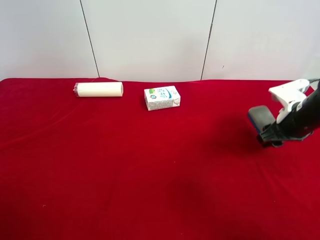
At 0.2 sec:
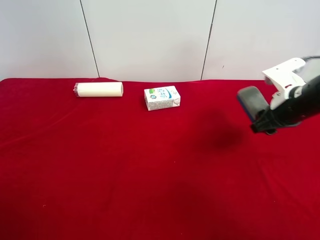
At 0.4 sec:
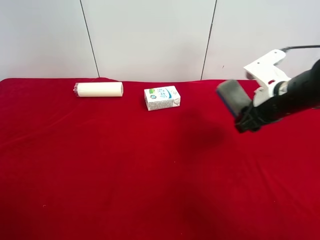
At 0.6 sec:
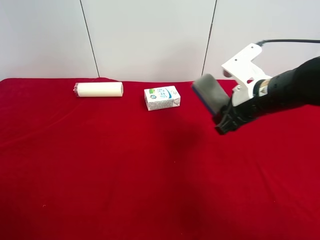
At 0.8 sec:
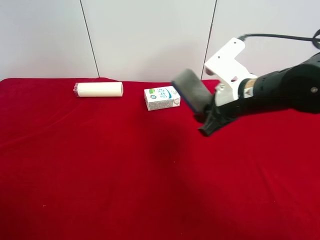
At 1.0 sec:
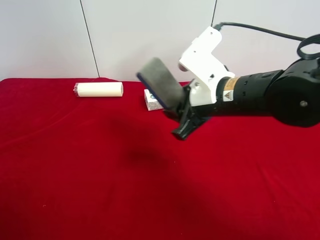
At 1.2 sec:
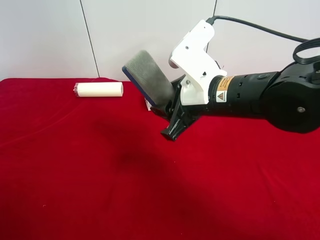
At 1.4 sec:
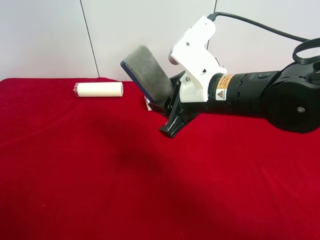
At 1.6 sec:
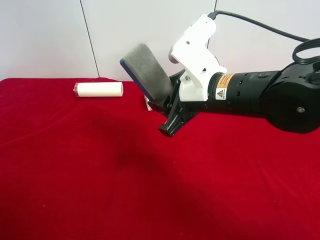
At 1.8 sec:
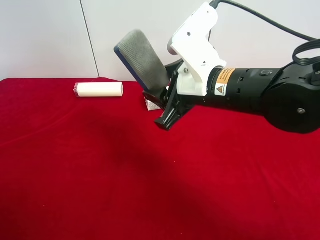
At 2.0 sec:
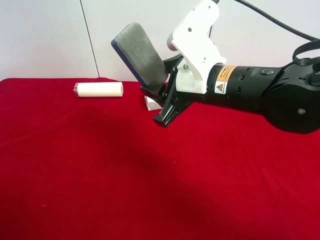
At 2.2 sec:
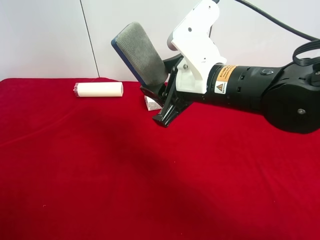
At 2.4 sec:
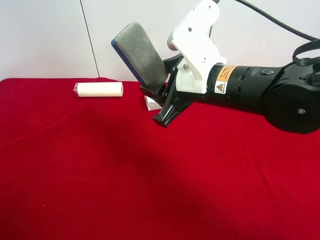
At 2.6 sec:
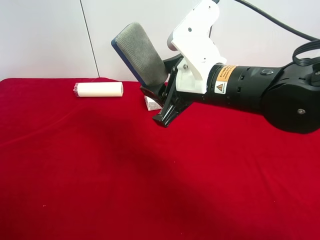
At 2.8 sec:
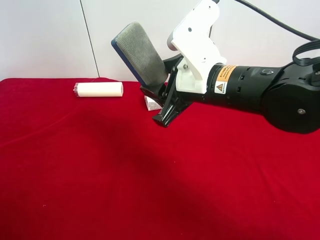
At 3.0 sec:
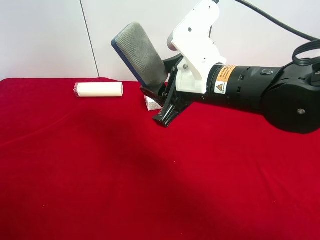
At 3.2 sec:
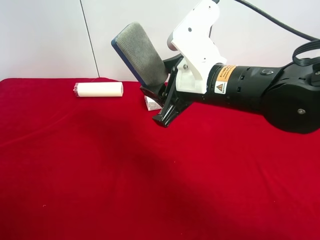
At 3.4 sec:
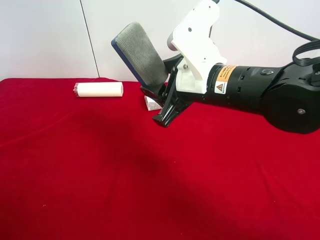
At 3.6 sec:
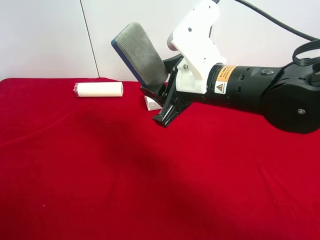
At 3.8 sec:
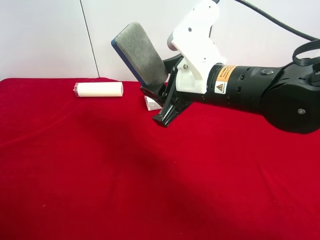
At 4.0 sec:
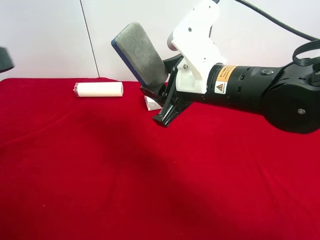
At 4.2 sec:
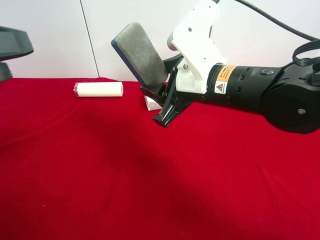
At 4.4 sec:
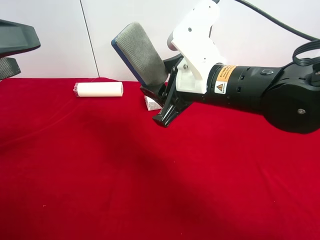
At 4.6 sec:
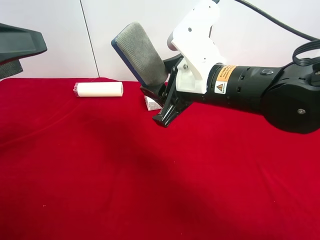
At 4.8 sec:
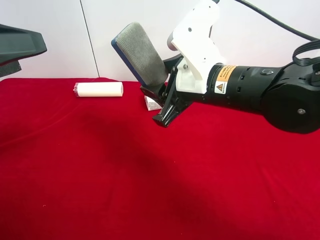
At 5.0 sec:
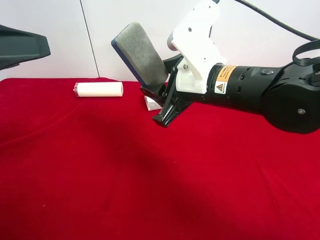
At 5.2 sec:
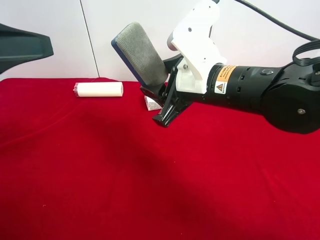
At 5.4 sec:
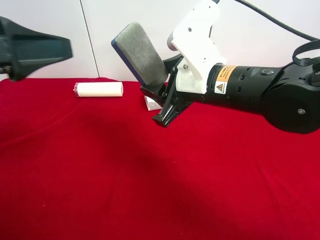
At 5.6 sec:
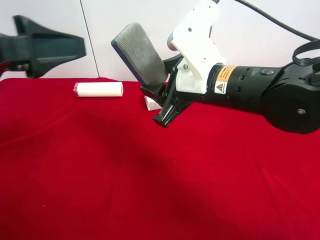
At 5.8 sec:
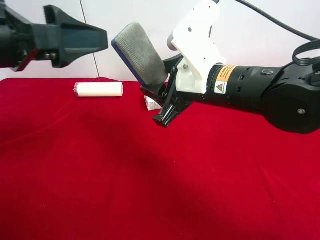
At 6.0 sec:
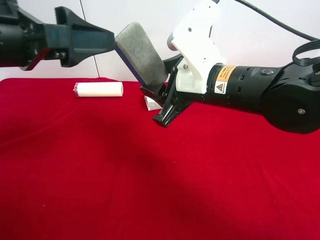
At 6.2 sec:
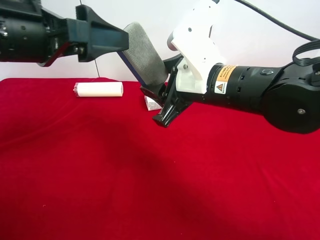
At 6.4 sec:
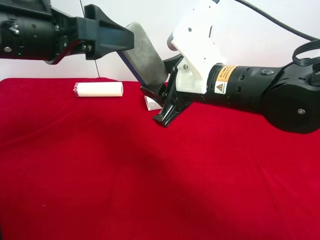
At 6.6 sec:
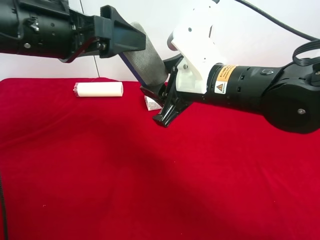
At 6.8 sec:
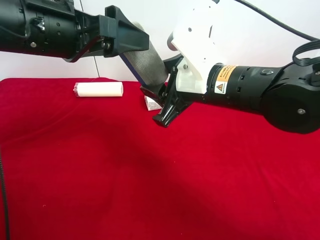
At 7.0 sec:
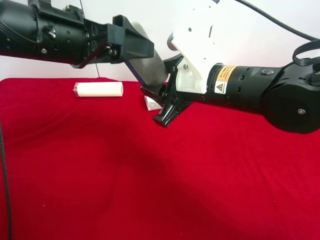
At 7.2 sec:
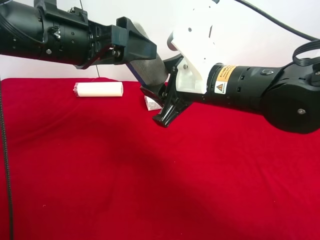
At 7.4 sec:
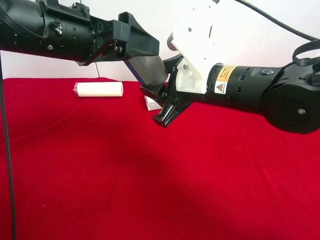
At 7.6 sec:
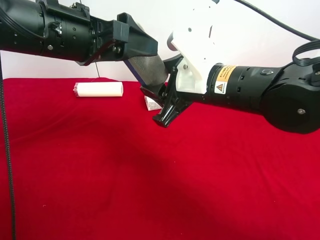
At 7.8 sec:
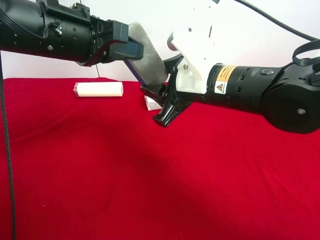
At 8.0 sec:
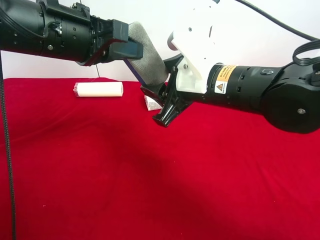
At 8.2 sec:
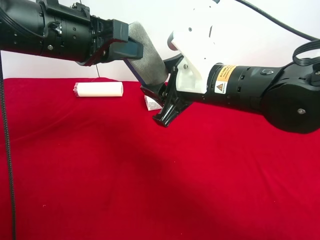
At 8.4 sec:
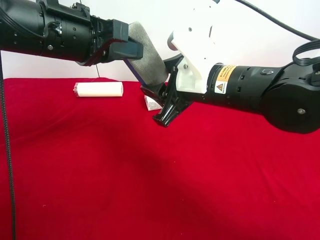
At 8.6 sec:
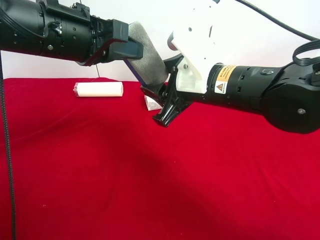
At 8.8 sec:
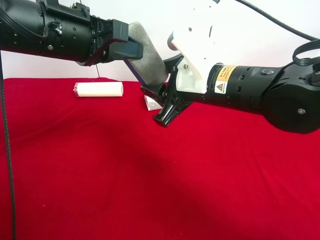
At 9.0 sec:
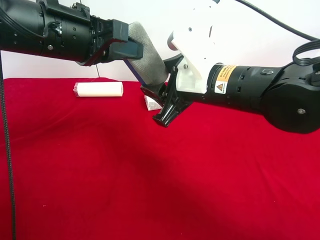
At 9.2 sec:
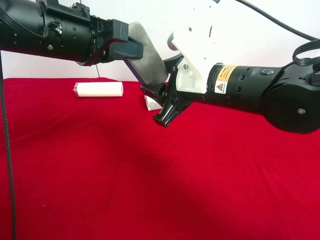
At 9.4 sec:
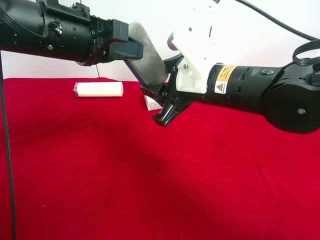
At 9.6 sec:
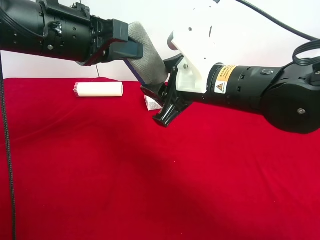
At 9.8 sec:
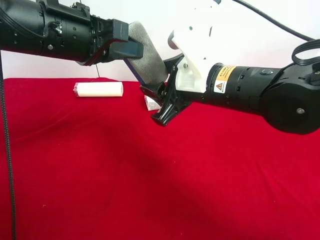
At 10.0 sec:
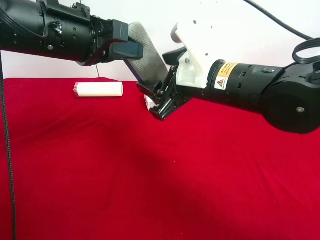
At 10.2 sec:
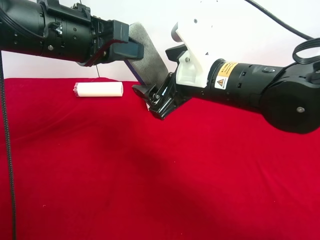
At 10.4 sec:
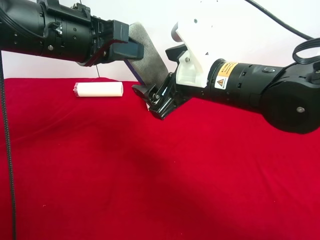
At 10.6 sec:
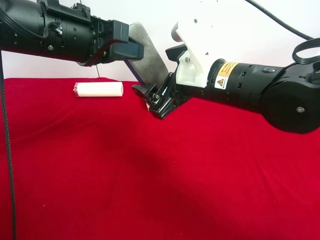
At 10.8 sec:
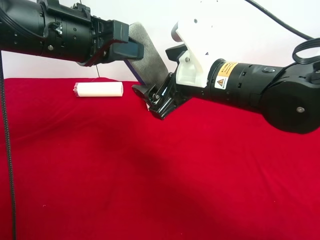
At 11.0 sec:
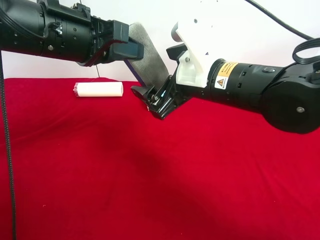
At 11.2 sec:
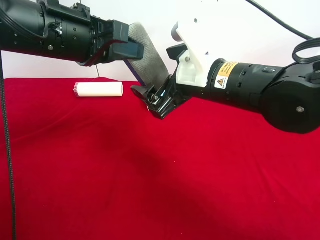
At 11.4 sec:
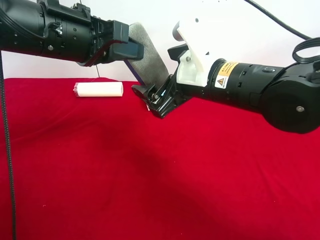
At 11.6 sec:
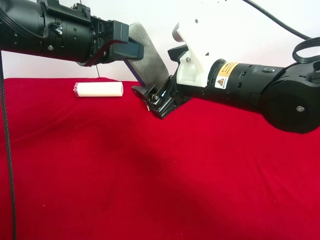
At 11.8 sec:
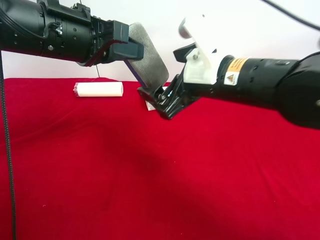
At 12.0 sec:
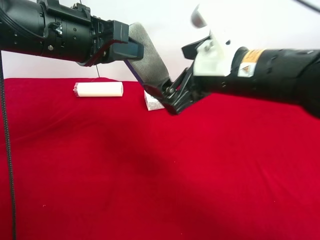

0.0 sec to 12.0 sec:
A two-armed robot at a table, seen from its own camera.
Task of the whole recording: use the right gripper to pick up the item and transfer it from the right gripper to the left gripper.
Step, 0.0 sec to 10.0 sec: Pass the blue blackboard erasure to the left gripper.
0.0 sec to 1.6 sec: The right gripper moves to the left, approximately 20 cm.
1.6 sec to 3.0 sec: There are only small adjustments of the grippers.
3.0 sec to 4.4 sec: The left gripper heads forward, covering roughly 15 cm.
4.4 sec to 6.0 sec: The left gripper heads to the right, covering some 5 cm.
6.0 sec to 7.6 sec: The left gripper moves forward, about 5 cm.
7.6 sec to 9.0 sec: The left gripper closes.
9.0 sec to 10.4 sec: The right gripper opens up.
10.4 sec to 12.0 sec: The grippers make only small movements.

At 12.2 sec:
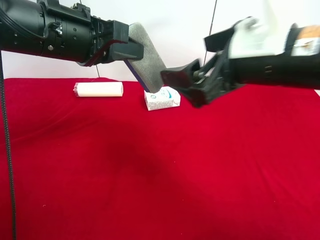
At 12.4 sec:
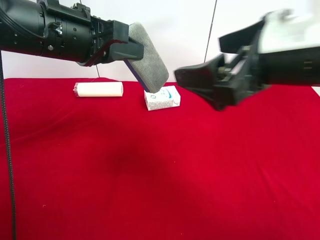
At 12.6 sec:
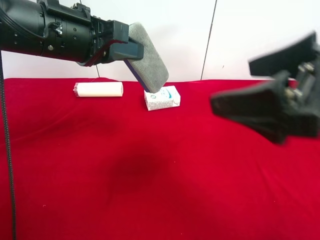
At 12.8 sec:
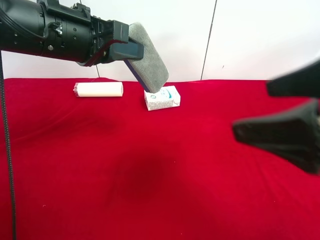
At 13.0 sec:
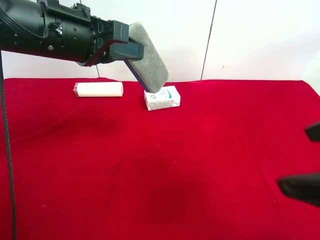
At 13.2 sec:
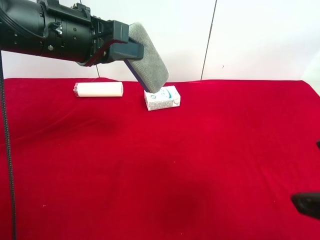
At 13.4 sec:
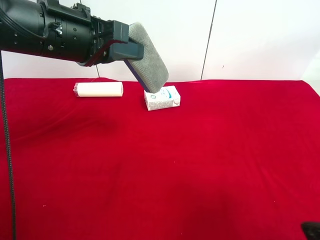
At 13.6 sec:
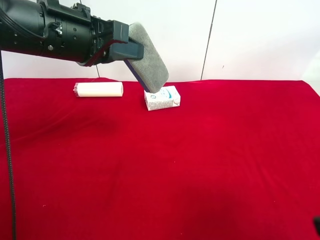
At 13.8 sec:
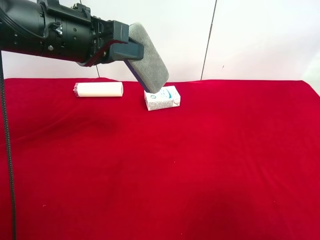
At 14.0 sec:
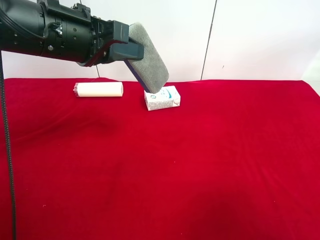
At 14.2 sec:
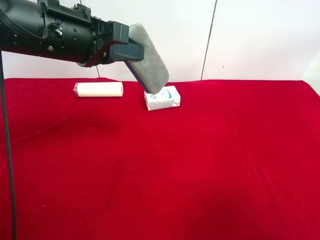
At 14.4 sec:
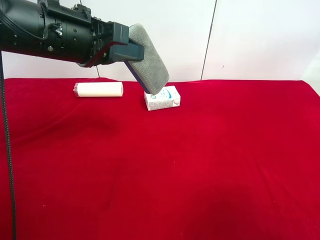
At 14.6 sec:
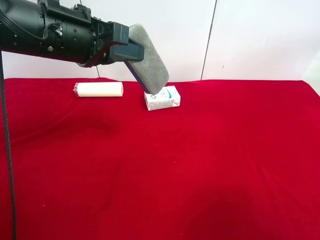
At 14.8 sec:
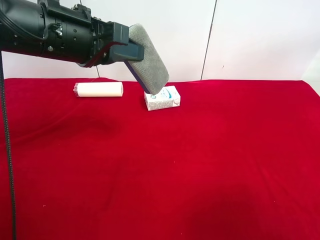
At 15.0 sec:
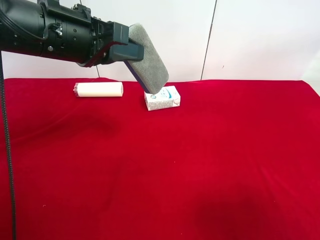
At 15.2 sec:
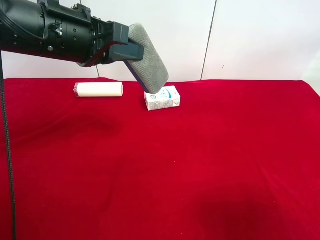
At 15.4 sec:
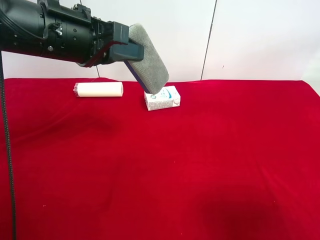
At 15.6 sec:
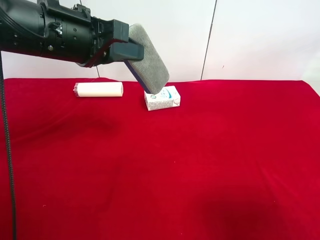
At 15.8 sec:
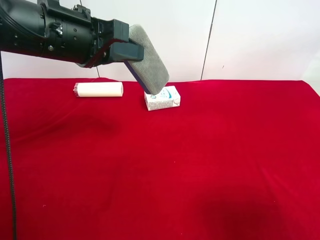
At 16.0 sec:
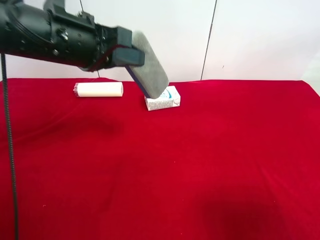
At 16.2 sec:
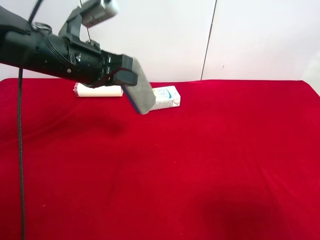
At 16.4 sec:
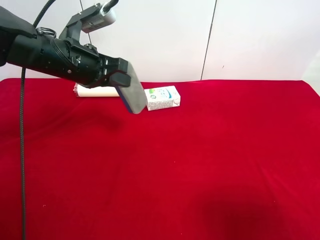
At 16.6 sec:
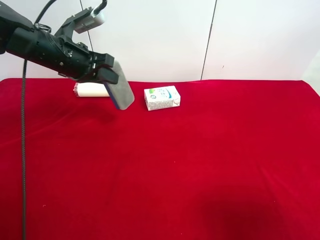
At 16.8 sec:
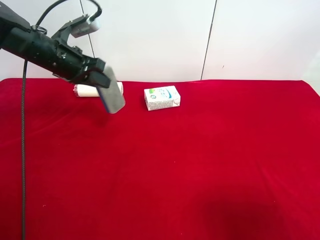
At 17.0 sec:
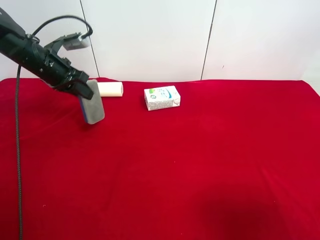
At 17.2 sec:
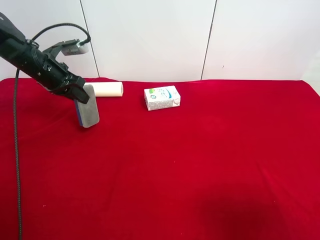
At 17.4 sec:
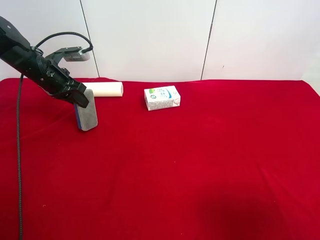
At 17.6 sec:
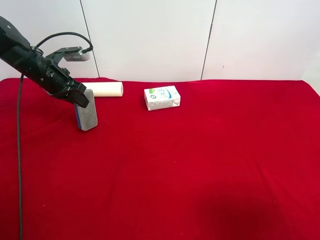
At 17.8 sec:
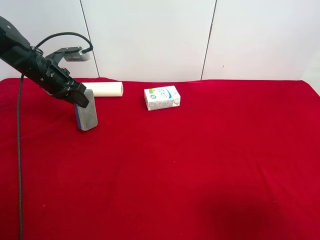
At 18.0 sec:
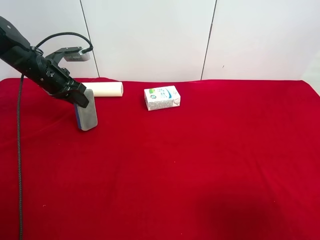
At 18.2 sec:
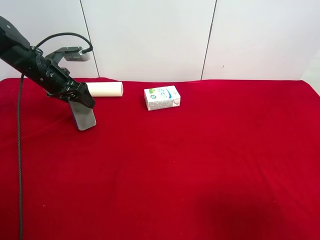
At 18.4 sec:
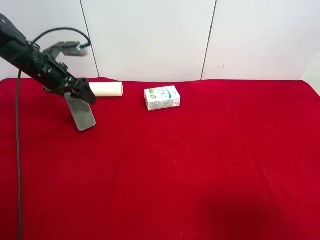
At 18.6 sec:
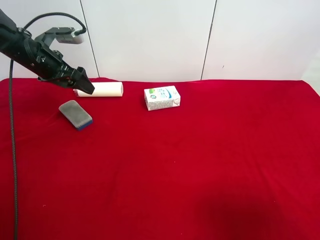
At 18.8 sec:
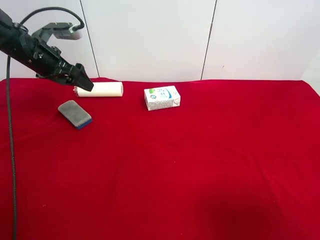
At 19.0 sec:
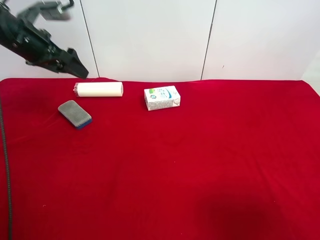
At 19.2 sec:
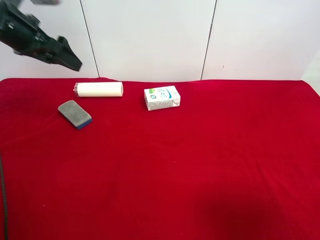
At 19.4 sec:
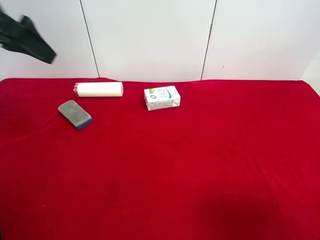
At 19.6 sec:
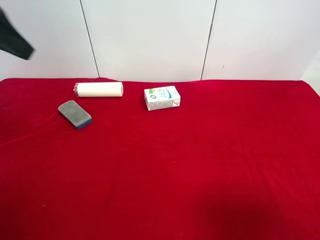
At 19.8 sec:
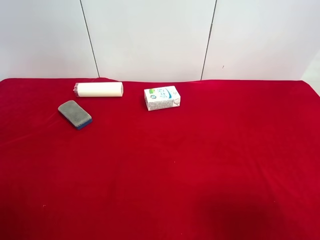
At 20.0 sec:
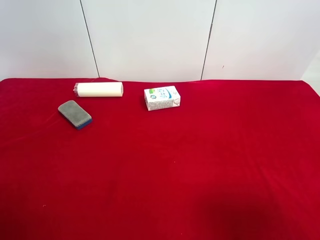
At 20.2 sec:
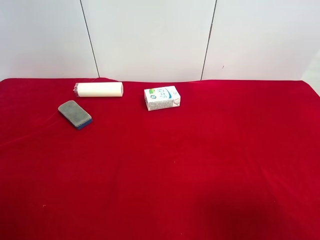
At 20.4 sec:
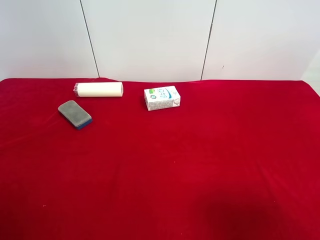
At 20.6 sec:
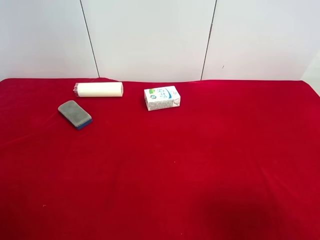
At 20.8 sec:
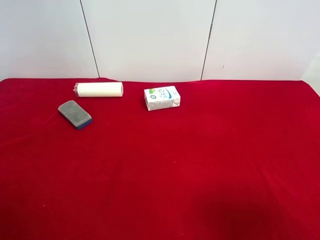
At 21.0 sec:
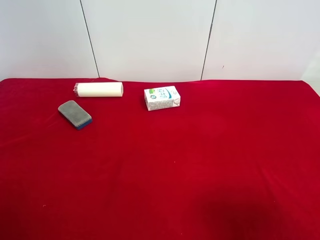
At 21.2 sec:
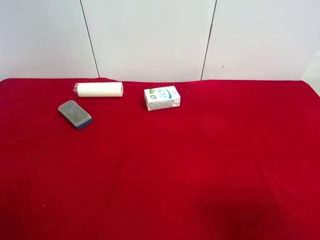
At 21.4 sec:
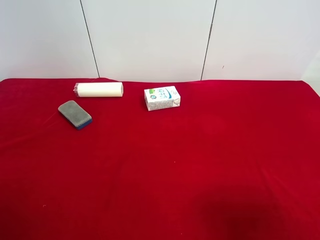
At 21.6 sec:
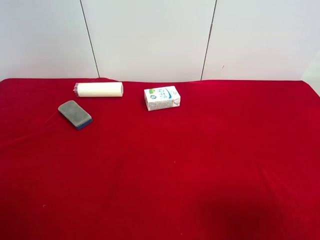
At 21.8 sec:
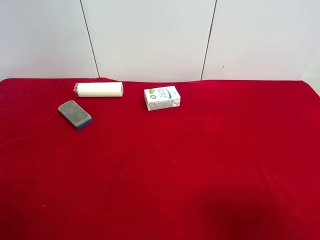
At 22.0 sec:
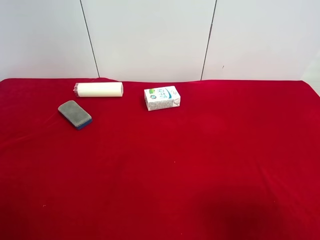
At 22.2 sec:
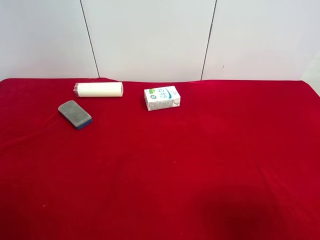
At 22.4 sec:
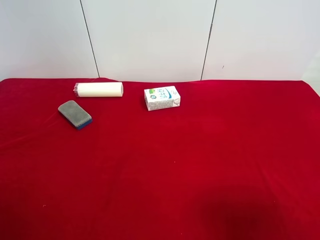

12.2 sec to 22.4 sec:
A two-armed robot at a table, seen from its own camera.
Task of the whole recording: use the right gripper to pick up the item and transfer it from the right gripper to the left gripper.
Step, 12.2 sec to 18.4 sec: The left gripper places blue blackboard erasure on the left side of the table.
12.2 sec to 13.6 sec: The right gripper is displaced backward and to the right by roughly 20 cm.
15.2 sec to 16.6 sec: The left gripper shifts about 15 cm forward, downward and to the left.
16.6 sec to 18.0 sec: The left gripper shifts some 10 cm to the left and downward.
18.0 sec to 19.4 sec: The left gripper shifts roughly 25 cm upward and backward, and opens up.
19.4 sec to 21.0 sec: The left gripper is displaced backward by approximately 25 cm.
